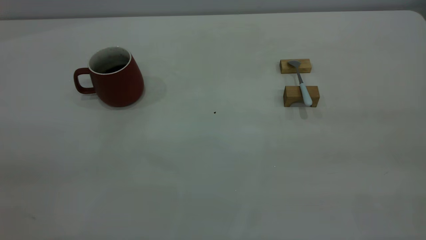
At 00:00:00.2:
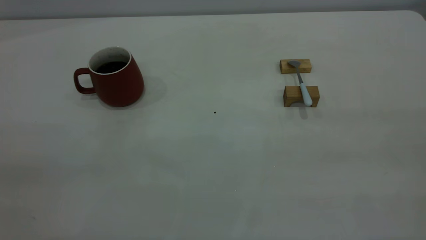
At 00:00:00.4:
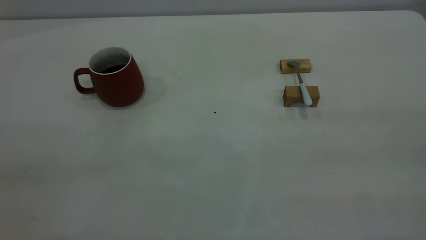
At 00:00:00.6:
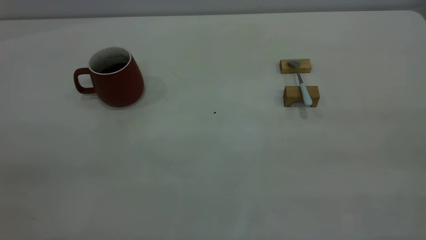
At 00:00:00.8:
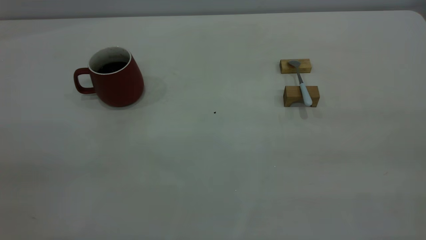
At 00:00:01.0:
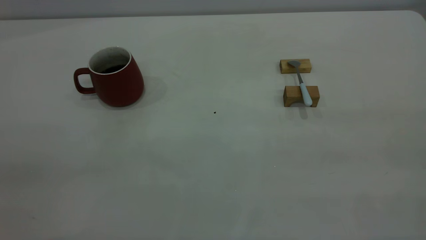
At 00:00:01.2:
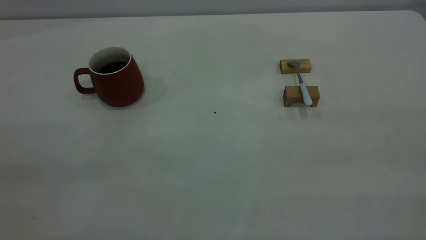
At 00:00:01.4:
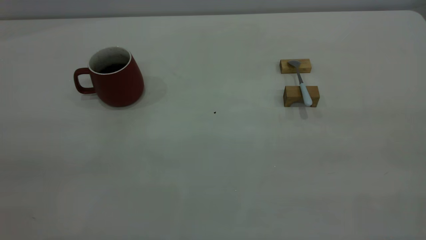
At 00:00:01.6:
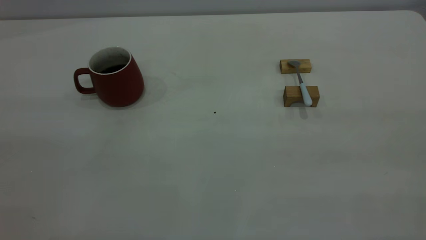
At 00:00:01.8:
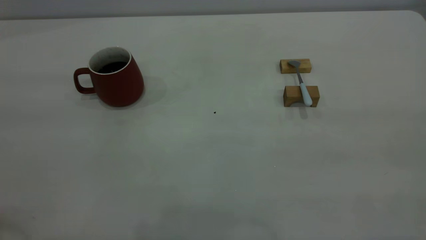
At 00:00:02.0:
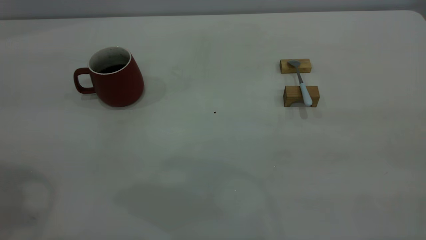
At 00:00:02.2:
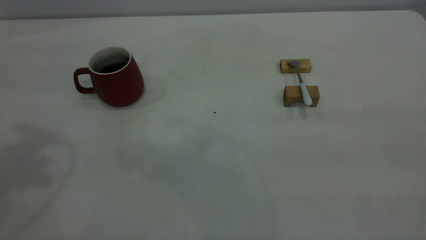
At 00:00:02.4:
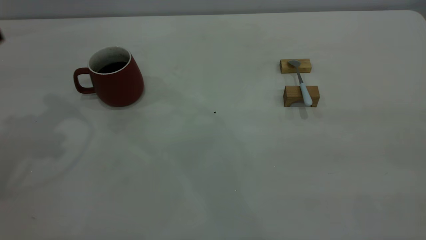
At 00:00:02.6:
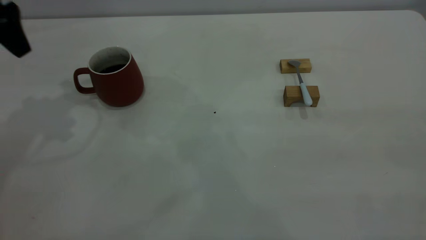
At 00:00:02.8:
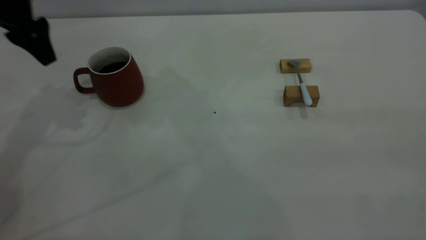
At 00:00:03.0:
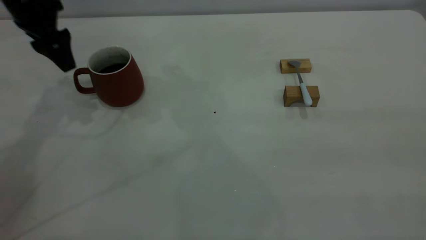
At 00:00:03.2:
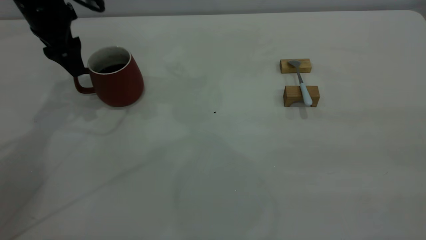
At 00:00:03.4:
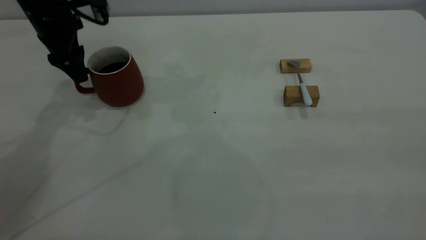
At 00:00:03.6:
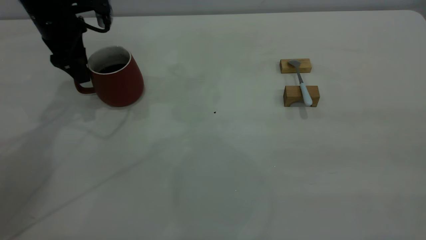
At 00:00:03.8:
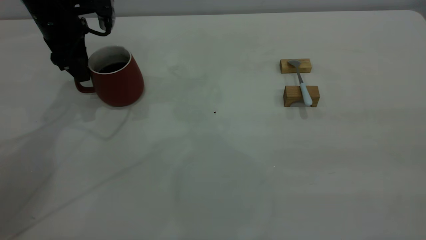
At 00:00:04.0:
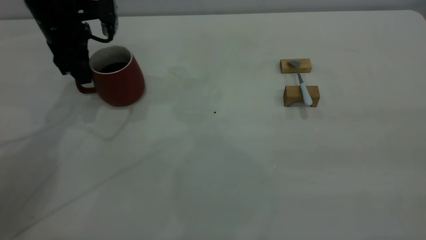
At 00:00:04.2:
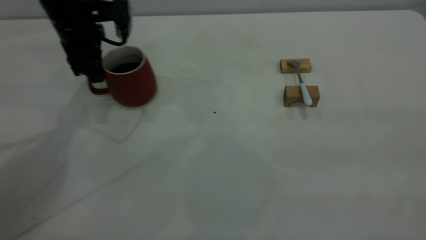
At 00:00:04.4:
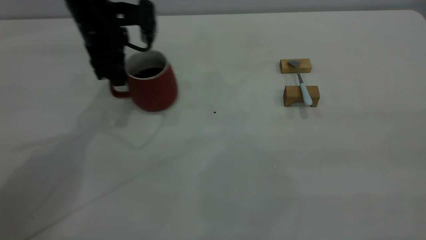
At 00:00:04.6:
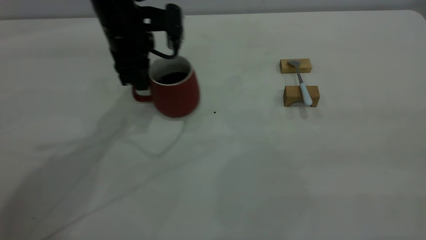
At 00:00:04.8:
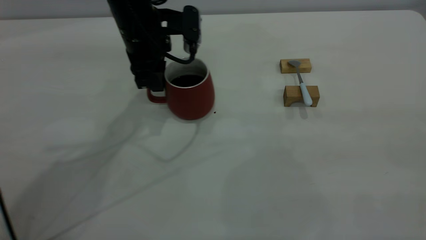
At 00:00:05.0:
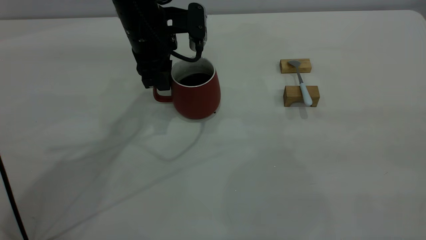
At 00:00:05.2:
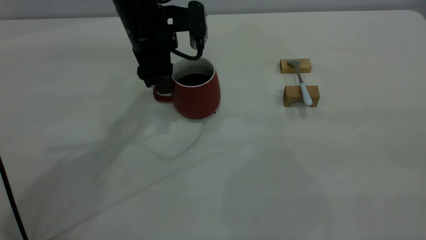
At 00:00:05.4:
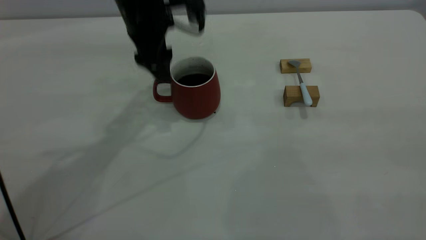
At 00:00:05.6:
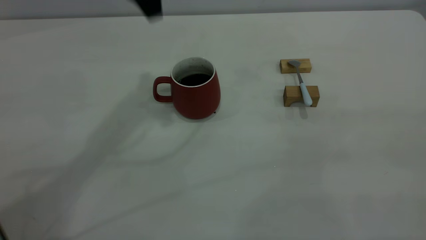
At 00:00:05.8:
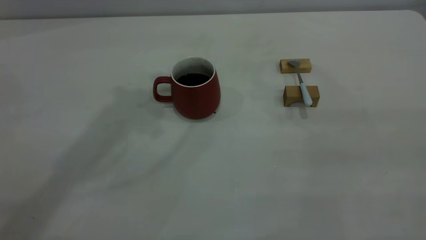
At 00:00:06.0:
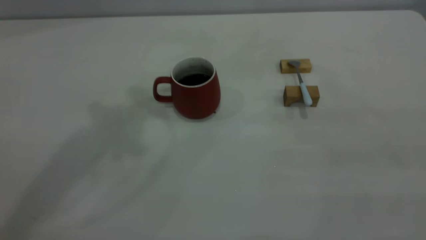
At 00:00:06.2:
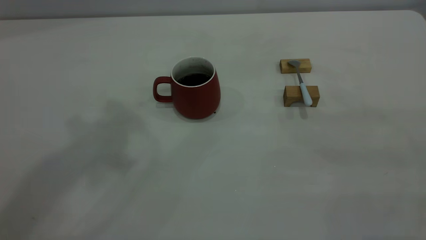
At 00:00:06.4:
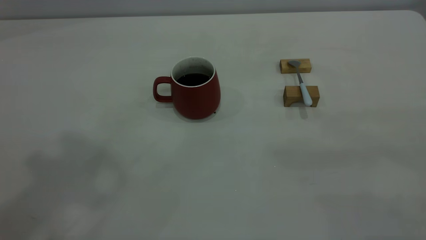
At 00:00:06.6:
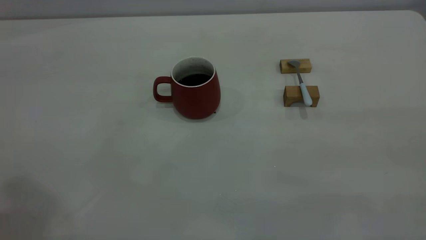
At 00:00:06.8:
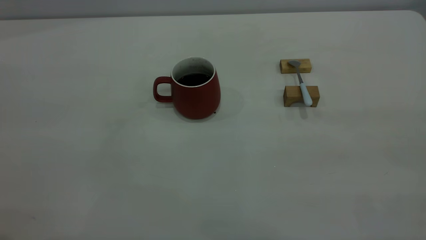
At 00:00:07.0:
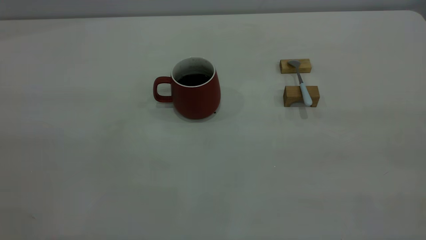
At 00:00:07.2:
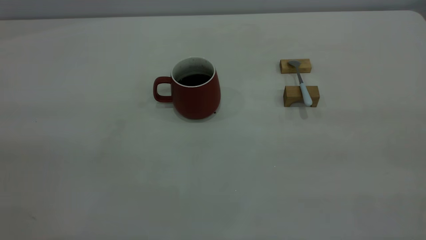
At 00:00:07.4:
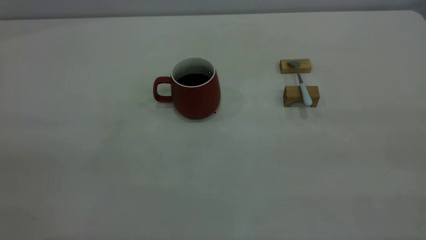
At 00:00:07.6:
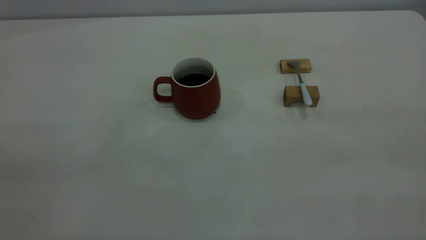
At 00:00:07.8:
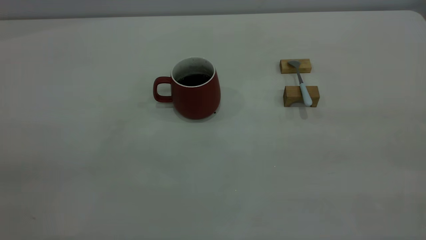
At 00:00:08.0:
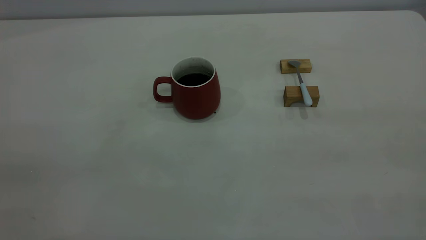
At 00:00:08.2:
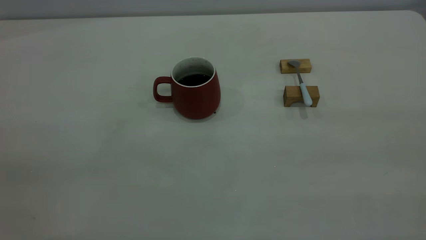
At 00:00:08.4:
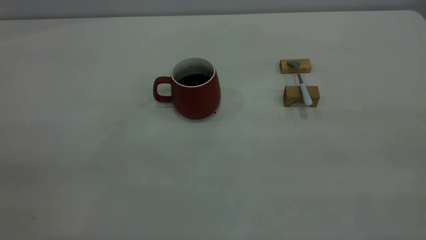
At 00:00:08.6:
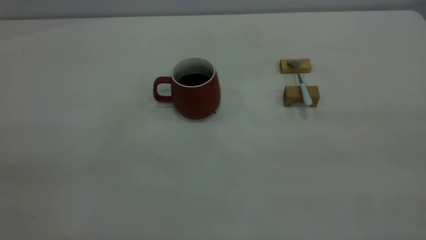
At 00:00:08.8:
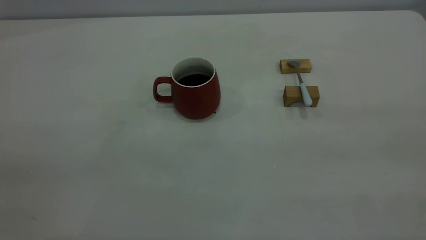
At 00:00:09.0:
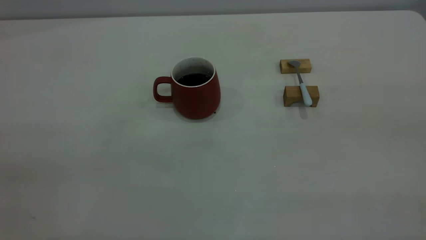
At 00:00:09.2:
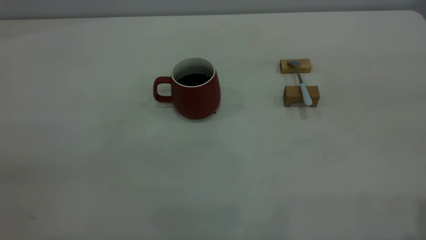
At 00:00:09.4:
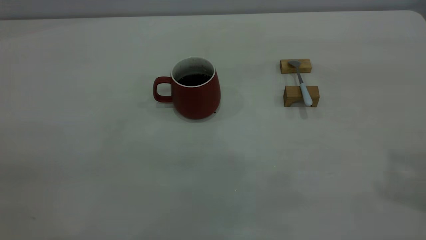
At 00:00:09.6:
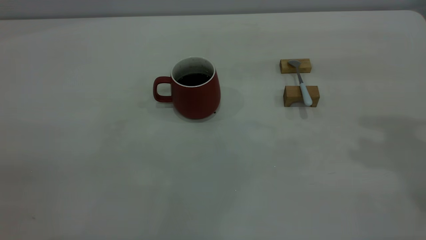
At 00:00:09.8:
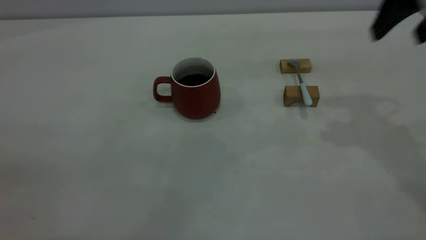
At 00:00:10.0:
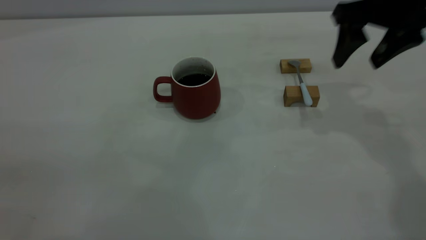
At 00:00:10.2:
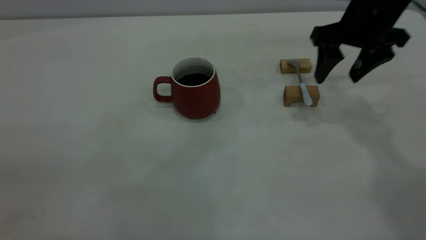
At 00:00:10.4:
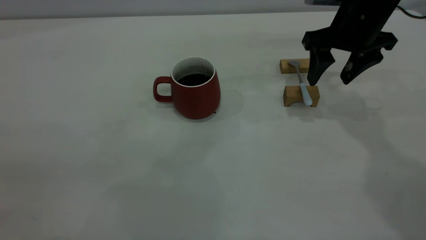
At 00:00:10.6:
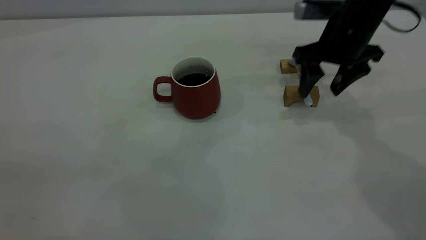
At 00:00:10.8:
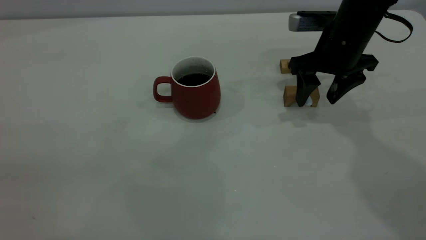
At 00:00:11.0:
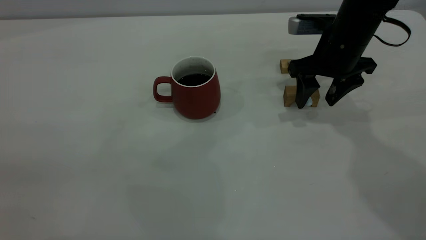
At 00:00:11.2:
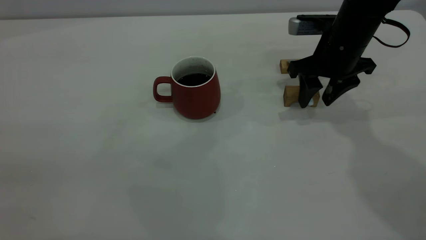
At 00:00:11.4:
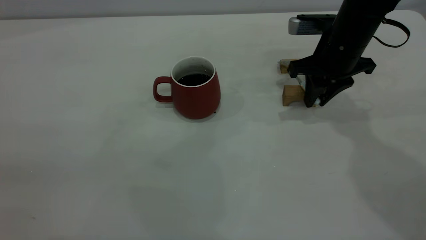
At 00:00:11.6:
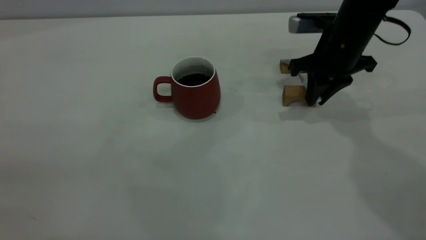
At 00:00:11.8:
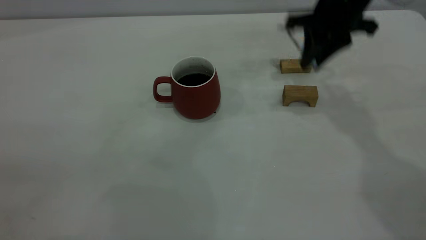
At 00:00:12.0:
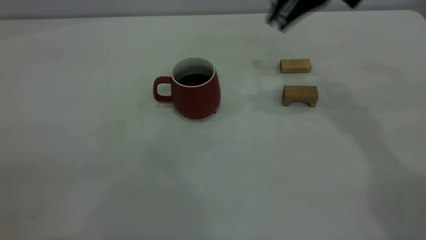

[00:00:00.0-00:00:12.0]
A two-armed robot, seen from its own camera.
Step, 00:00:00.0 to 00:00:05.2: Move the cup with coffee to the center of view.
Step, 00:00:05.6 to 00:00:11.6: Pick up the spoon.
00:00:01.6 to 00:00:03.0: The left gripper is displaced forward and downward by some 40 cm, and opens up.
00:00:03.0 to 00:00:04.4: The left gripper is displaced to the right by about 10 cm, and closes up.
00:00:04.4 to 00:00:06.0: The left gripper moves upward, about 35 cm, and opens, then closes again.
00:00:09.0 to 00:00:10.4: The right gripper goes about 40 cm forward and downward.
00:00:10.4 to 00:00:12.0: The right gripper moves upward and to the left, some 10 cm, and closes.

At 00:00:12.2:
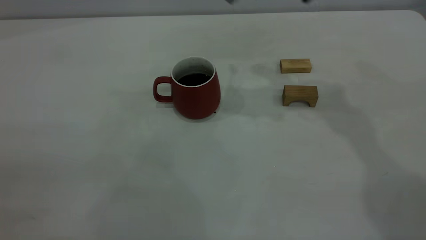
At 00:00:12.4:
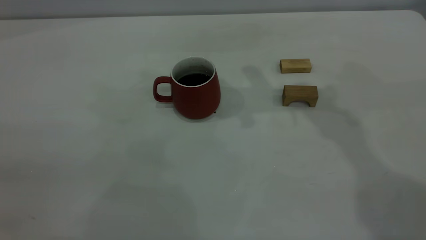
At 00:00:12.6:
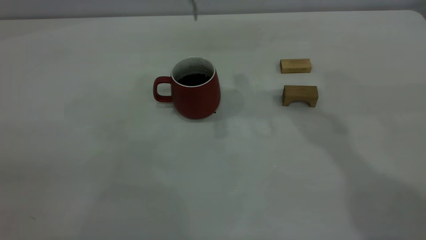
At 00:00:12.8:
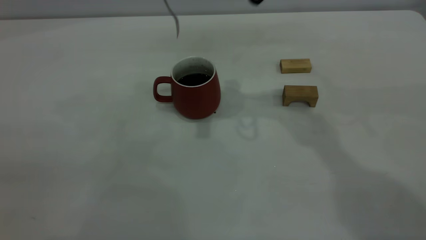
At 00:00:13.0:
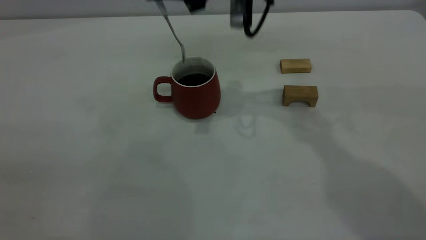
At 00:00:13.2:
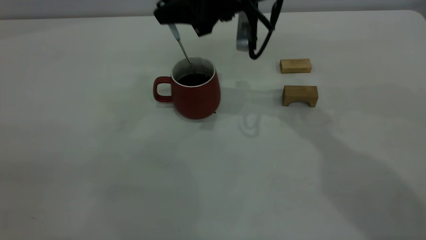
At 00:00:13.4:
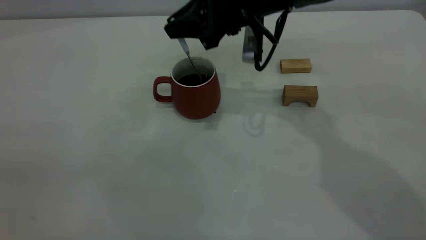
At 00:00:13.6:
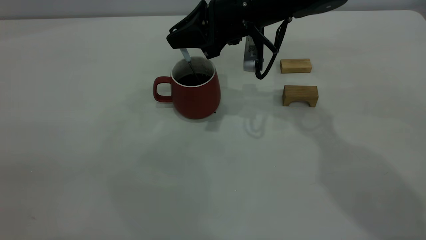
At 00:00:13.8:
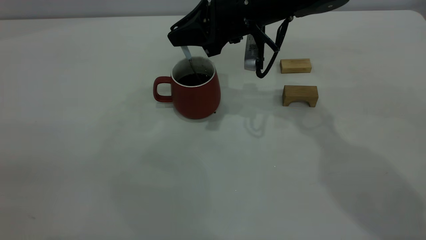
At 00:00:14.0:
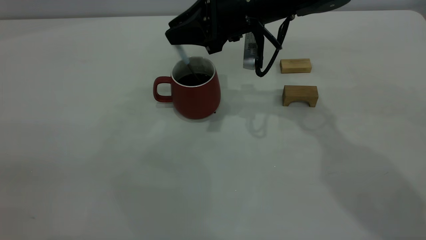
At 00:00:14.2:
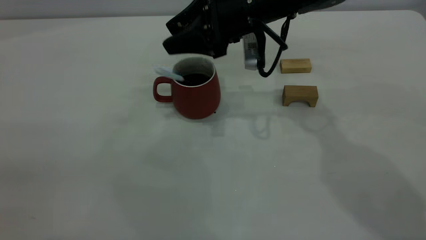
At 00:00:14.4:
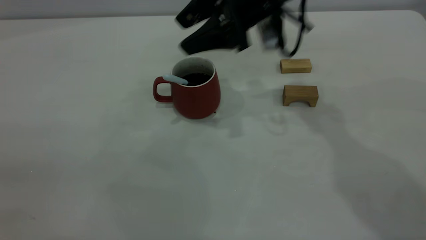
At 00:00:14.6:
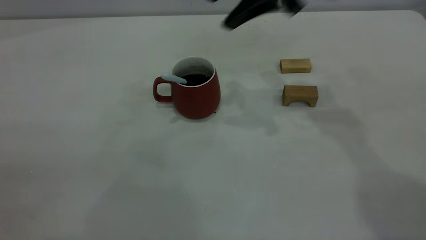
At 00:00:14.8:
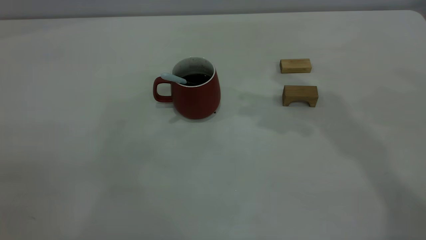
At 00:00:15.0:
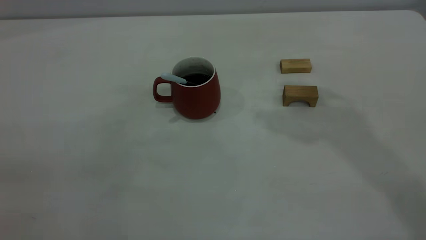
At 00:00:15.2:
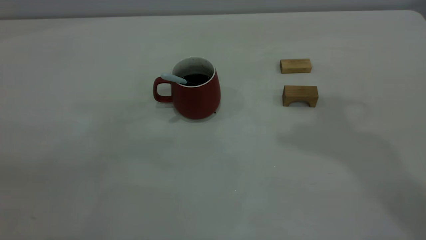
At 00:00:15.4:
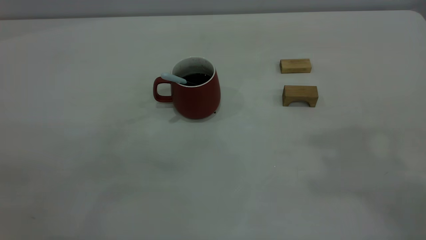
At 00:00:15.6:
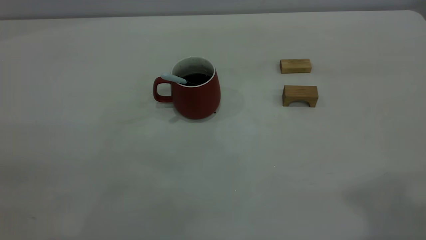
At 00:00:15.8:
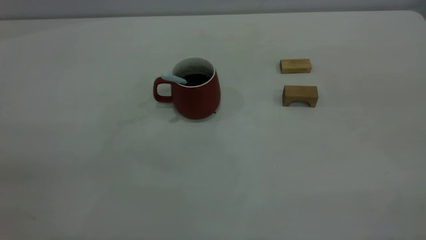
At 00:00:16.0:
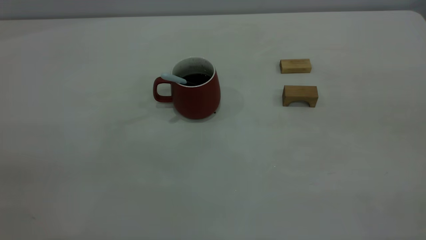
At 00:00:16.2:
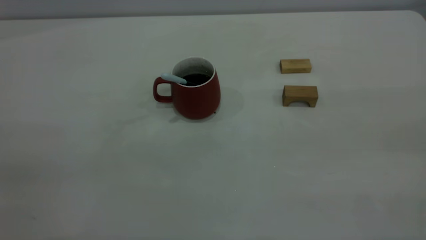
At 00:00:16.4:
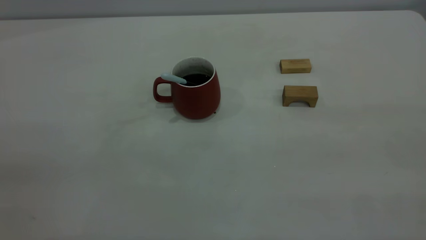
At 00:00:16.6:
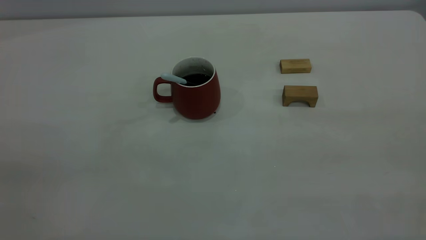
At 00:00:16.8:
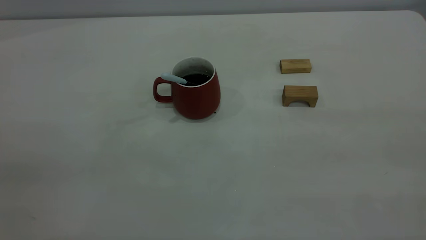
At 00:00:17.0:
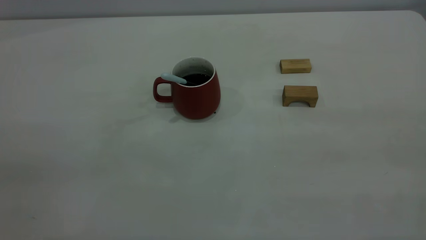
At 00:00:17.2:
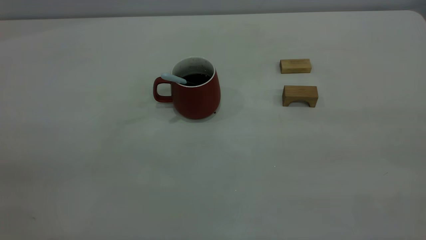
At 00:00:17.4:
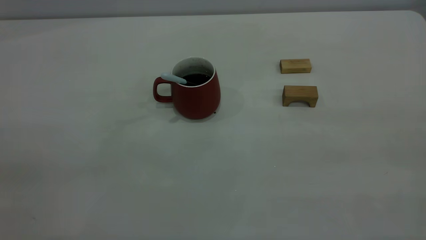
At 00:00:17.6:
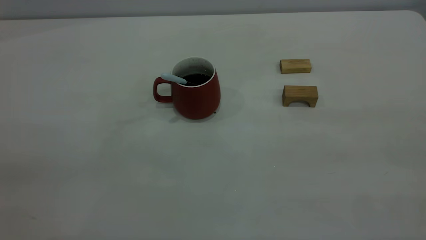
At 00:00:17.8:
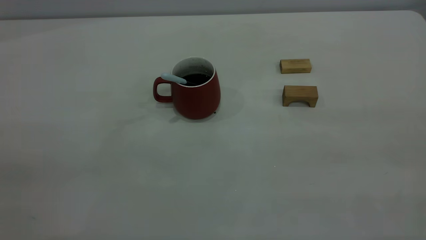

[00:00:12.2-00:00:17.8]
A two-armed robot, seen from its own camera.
Step, 00:00:12.2 to 00:00:14.2: Stir the coffee in the cup.
00:00:12.2 to 00:00:13.6: The right gripper goes about 15 cm downward and to the left.
00:00:13.6 to 00:00:15.0: The right gripper goes about 25 cm upward, and opens.
